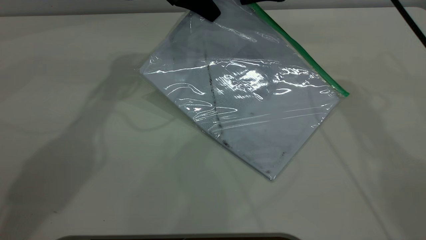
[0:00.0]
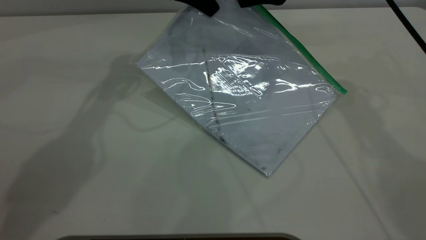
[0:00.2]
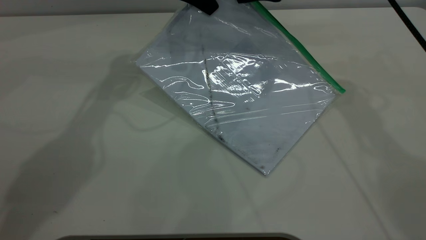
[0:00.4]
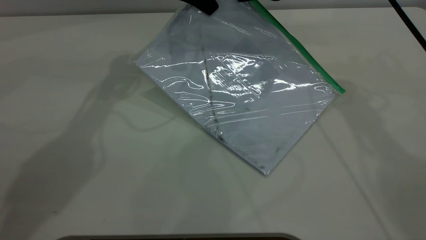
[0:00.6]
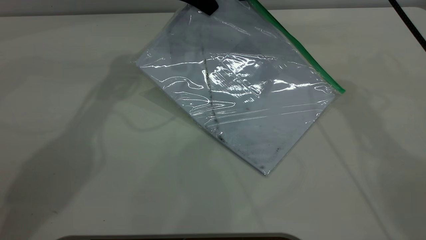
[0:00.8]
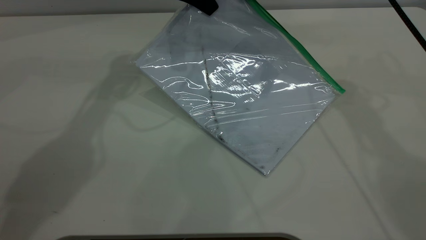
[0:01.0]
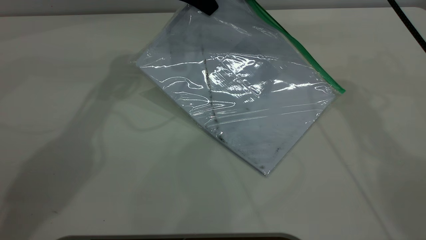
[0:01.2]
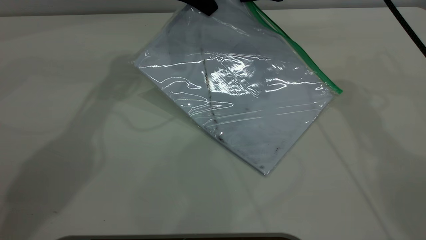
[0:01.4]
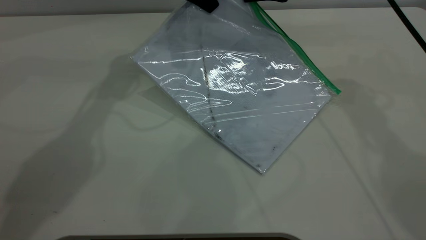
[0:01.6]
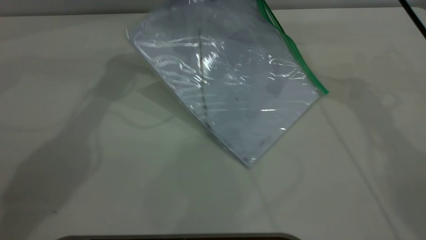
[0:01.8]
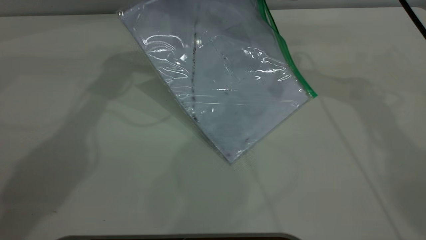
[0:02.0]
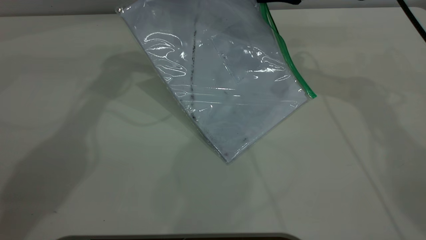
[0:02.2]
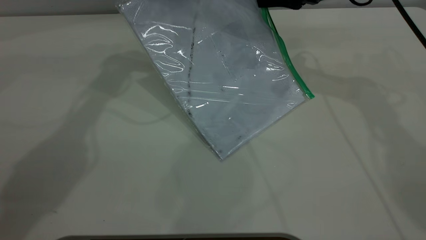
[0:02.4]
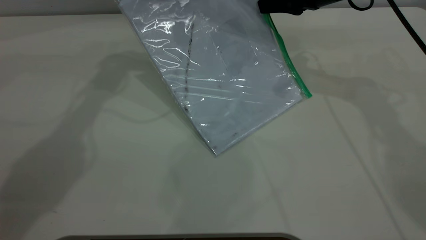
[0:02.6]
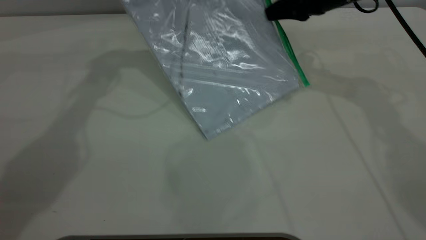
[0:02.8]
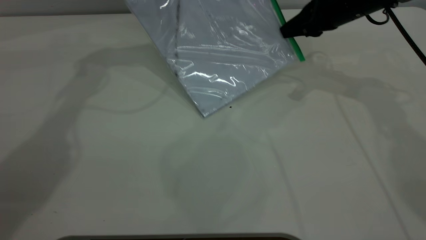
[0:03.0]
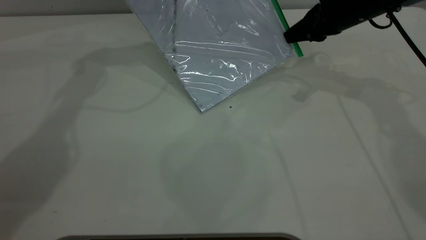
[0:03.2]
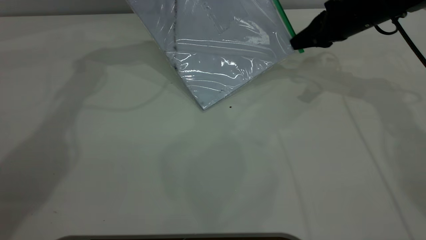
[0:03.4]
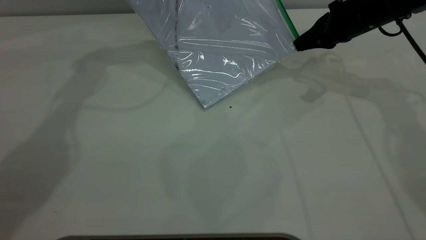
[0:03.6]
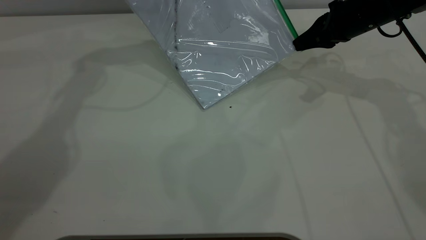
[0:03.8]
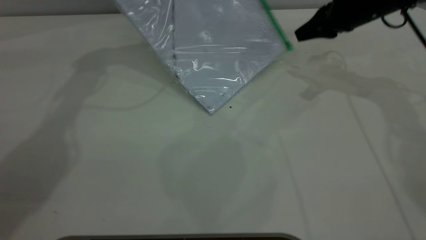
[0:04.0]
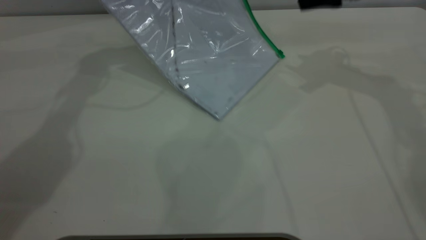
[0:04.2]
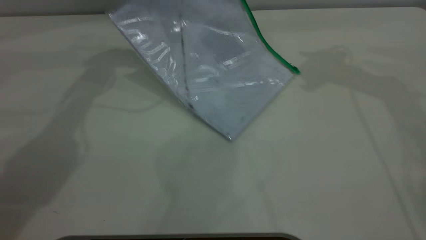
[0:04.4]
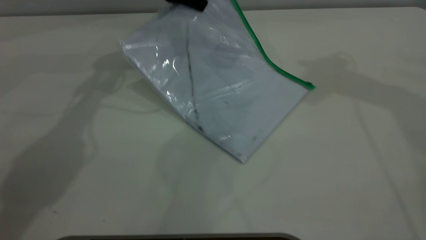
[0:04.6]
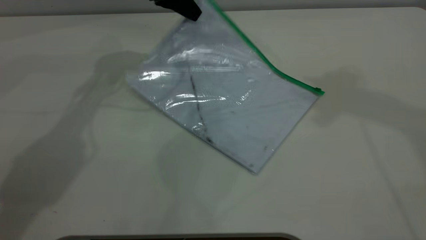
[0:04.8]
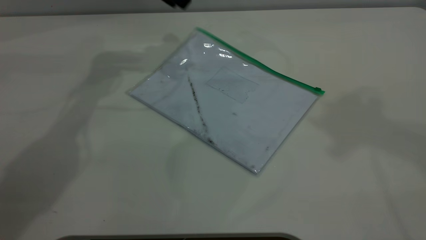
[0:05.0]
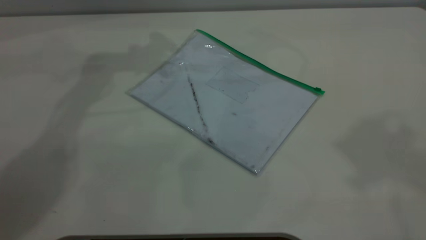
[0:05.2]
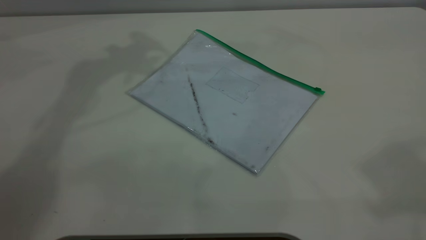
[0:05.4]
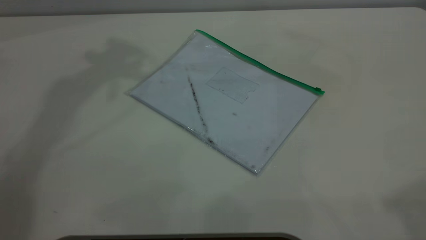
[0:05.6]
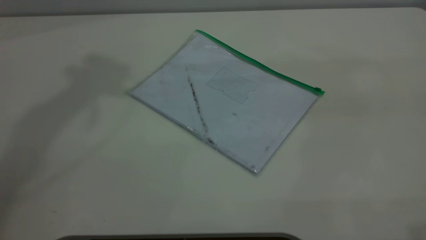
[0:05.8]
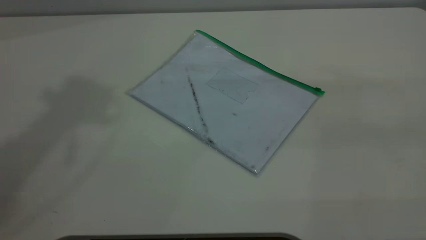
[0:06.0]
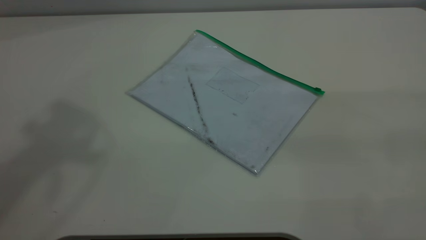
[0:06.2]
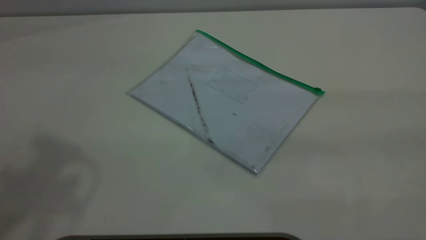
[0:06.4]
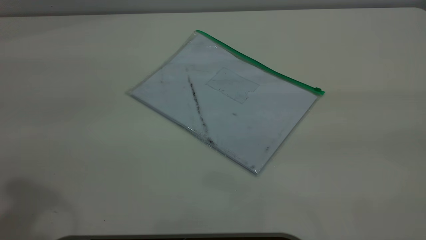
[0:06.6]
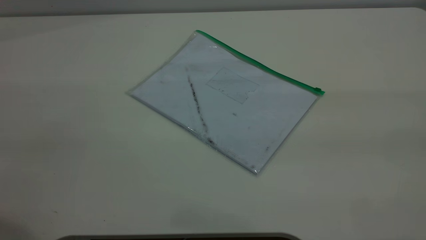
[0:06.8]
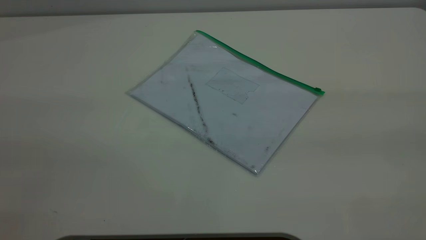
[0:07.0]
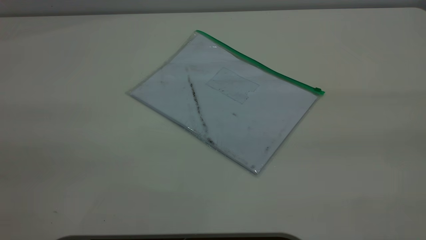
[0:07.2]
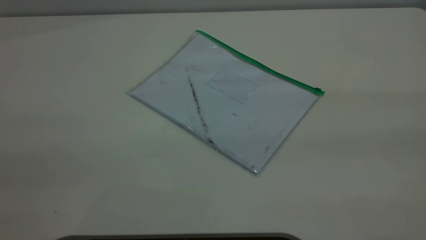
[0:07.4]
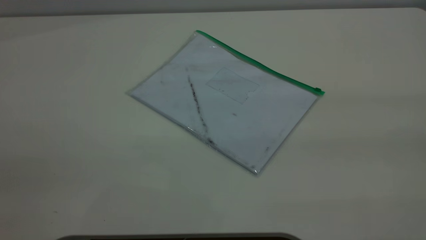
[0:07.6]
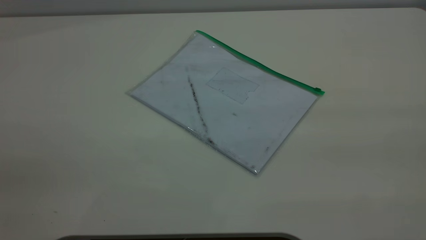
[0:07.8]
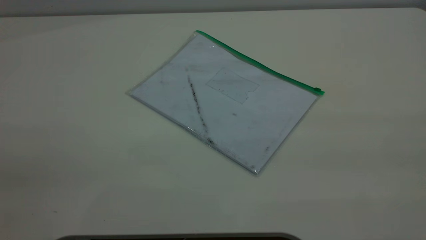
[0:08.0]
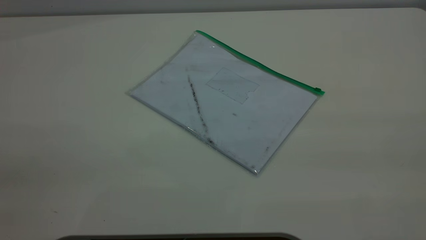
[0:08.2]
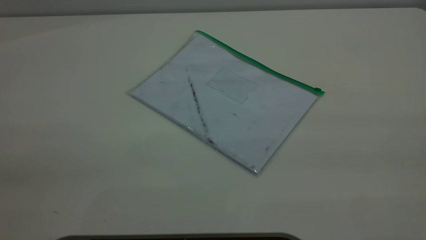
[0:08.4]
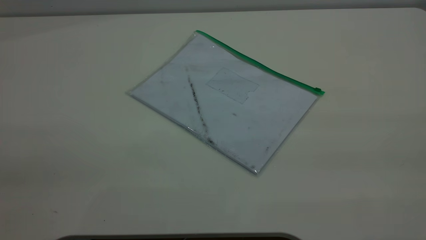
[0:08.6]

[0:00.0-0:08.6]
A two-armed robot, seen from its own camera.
Step, 0:00.0 to 0:03.8: Pulling up the zipper on the transparent plastic bag with the right gripper to close it.
Step, 0:04.2 to 0:04.8: Place the transparent plastic bag.
0:00.0 to 0:01.4: The right gripper closes up.
0:01.4 to 0:02.8: The right gripper heads to the right and downward, covering some 5 cm. Meanwhile the left gripper changes place by about 5 cm.
0:02.8 to 0:04.4: The right gripper travels upward by some 15 cm, and opens up; the left gripper is displaced downward by some 5 cm.
0:04.4 to 0:05.8: The left gripper heads upward and backward, covering approximately 40 cm, and opens, while the right gripper goes roughly 35 cm backward.
